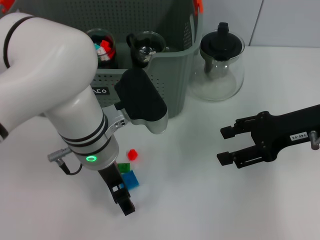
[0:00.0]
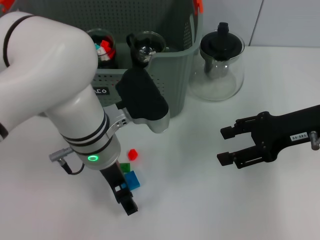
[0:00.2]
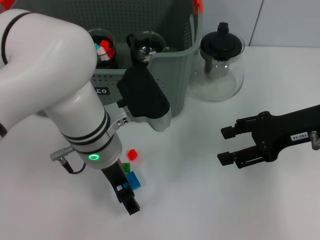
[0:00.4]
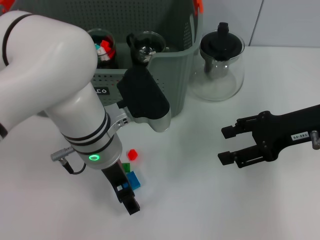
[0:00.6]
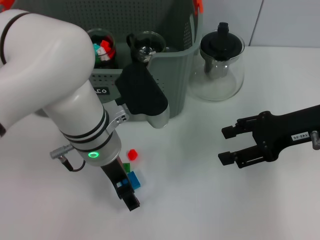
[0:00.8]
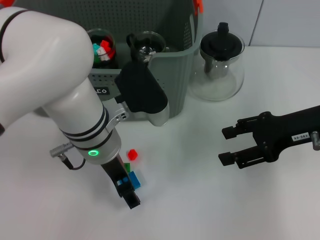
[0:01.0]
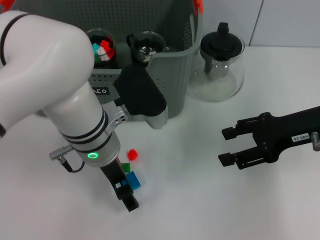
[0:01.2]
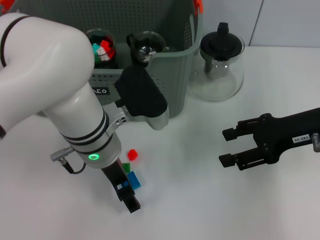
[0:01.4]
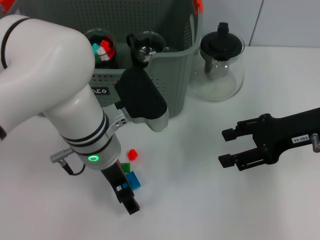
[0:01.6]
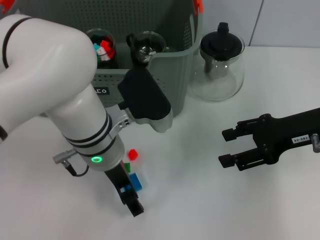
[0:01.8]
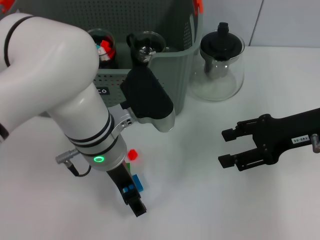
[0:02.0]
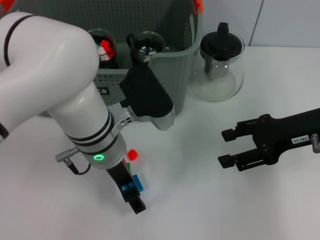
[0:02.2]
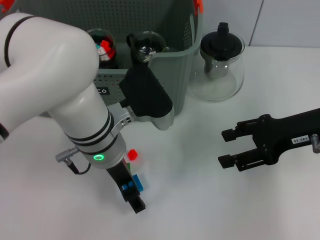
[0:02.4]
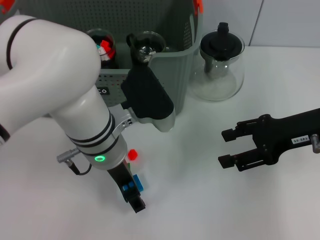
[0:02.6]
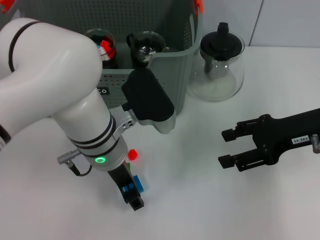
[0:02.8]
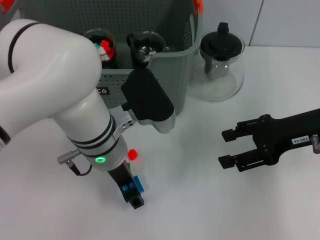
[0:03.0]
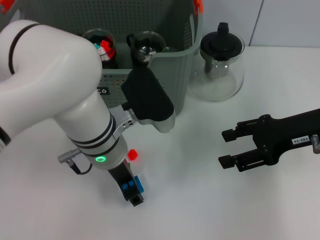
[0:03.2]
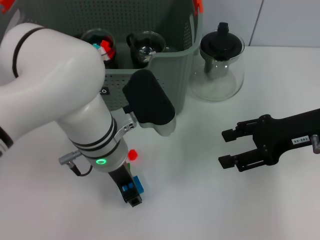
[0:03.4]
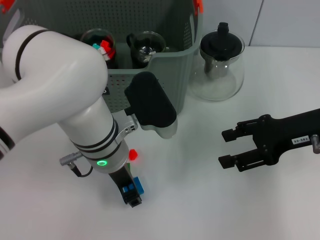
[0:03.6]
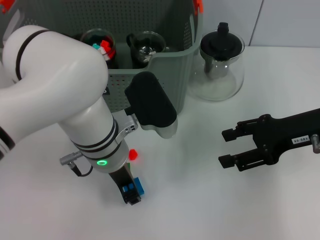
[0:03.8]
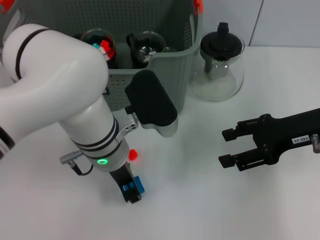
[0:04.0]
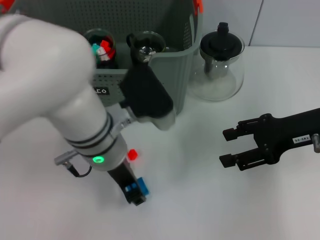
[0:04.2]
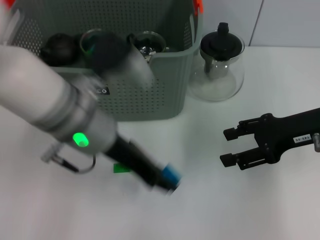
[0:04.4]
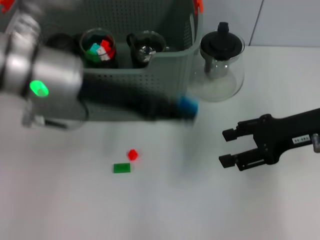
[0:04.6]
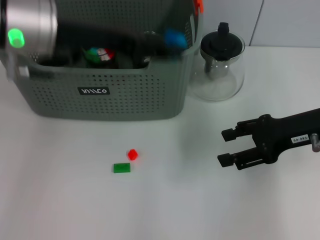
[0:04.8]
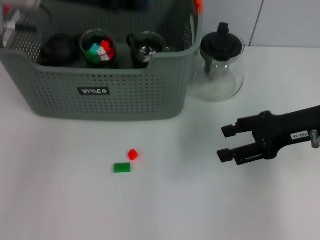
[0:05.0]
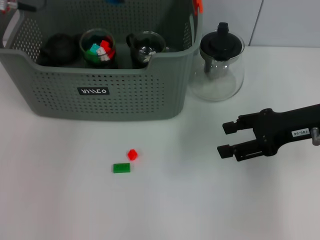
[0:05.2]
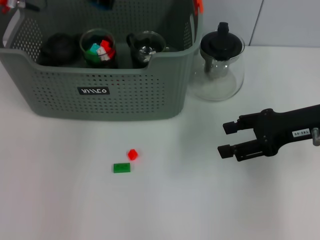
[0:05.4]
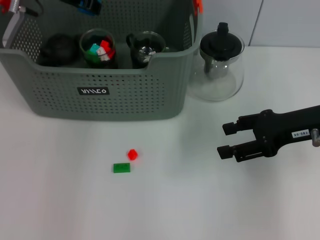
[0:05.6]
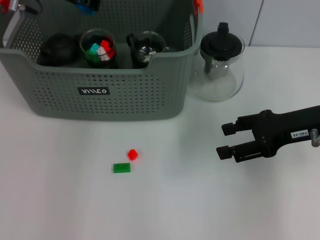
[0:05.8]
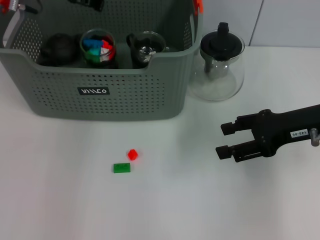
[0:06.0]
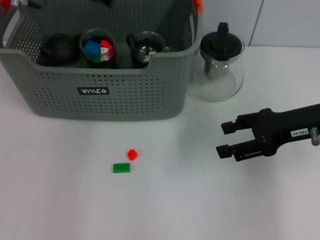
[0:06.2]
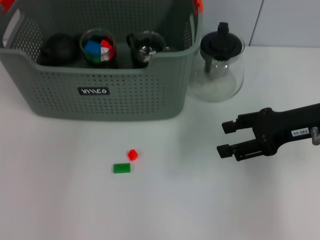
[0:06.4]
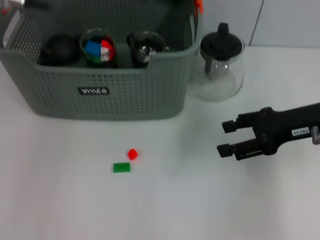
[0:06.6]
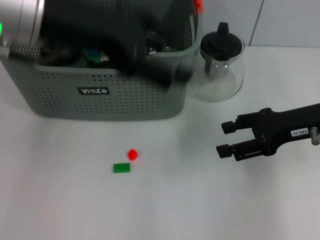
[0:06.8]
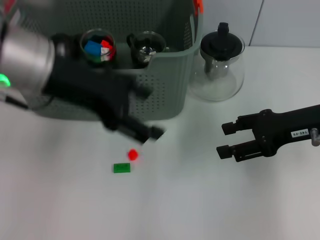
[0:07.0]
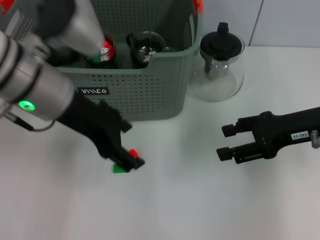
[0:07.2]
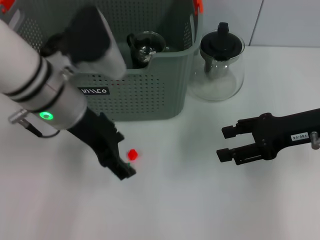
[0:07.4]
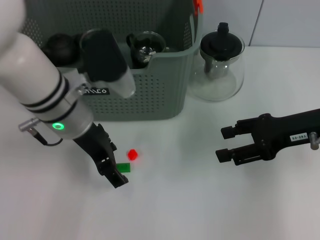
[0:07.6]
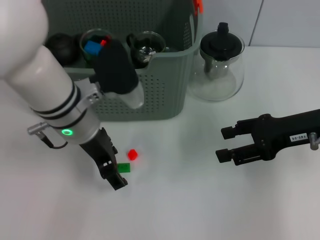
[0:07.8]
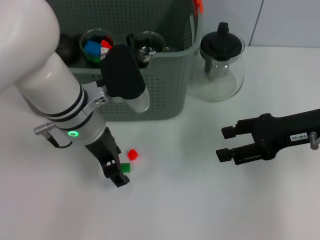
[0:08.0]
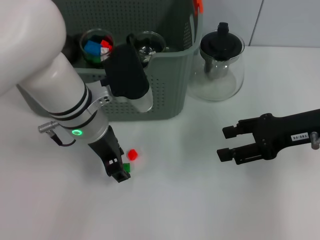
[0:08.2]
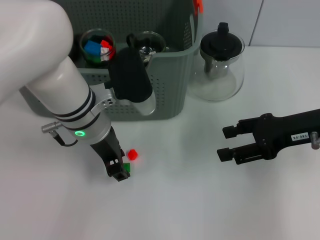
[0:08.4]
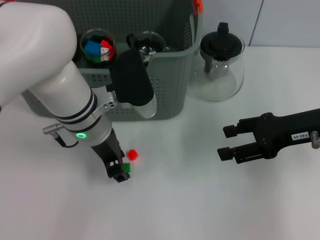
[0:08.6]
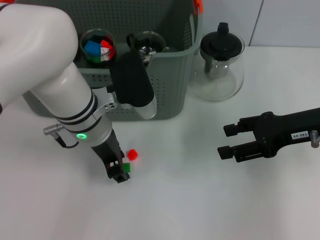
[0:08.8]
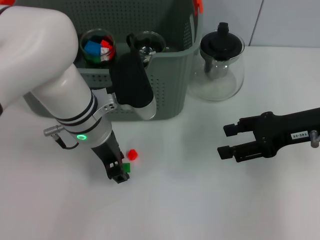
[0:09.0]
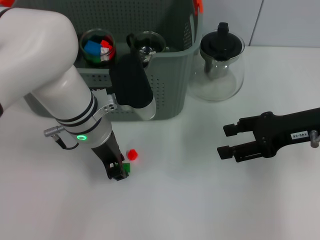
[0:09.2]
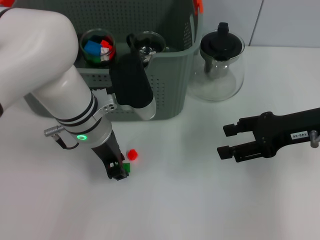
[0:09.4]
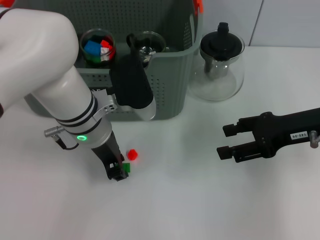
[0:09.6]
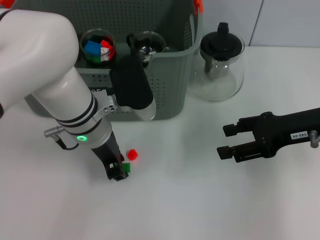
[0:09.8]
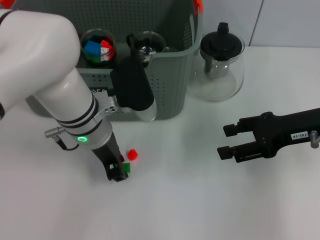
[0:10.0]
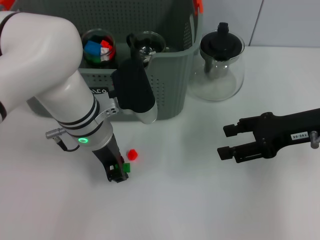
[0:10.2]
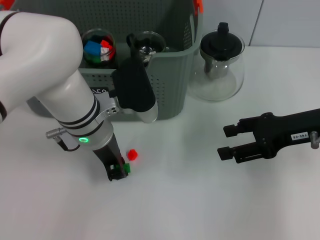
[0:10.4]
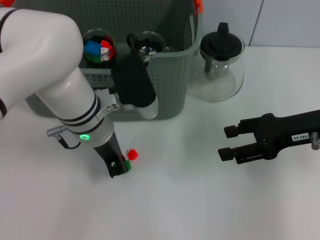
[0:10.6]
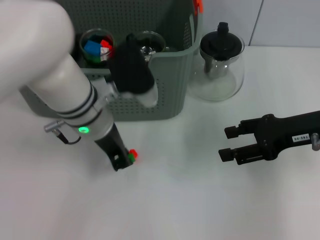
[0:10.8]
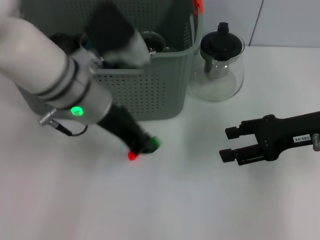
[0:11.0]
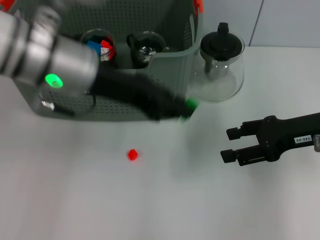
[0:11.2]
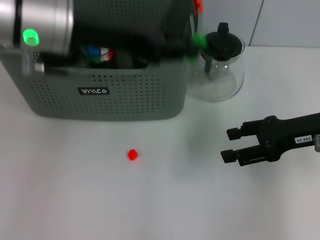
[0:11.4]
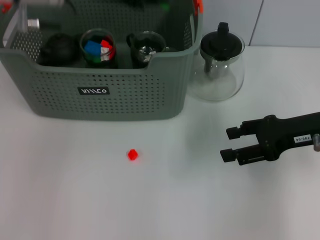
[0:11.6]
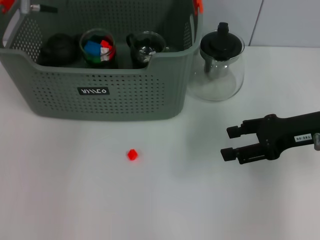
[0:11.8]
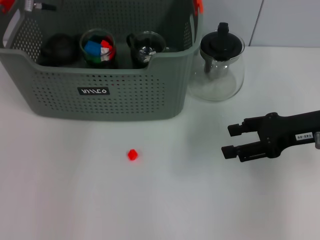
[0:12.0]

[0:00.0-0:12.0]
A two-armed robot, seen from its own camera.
Task of the whole recording: pick up the teacup on the table and place it into the storage bin, pick up the block on the table and place it into the storage bin.
Step, 0:00.0 to 0:04.0: Grasp the dark blue block with left gripper.
Step, 0:04.2 to 0:06.4: Place the dark blue block in the storage box with left gripper.
Step, 0:06.6 to 0:10.6: Grasp the green block with left gripper.
0:00.0 to 0:03.0: Both grippers stay about where they are.
0:03.0 to 0:04.4: The left gripper moves upward, roughly 5 cm.
0:04.4 to 0:06.0: The left gripper travels forward, to the left and upward by about 20 cm.
0:06.0 to 0:07.6: The left gripper heads backward, downward and to the right, covering roughly 15 cm, and opens.
0:07.6 to 0:09.0: The left gripper closes up.
0:09.0 to 0:10.4: Neither gripper changes place.
0:10.4 to 0:12.0: The left gripper goes about 20 cm upward, forward and to the left.

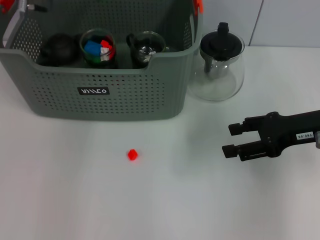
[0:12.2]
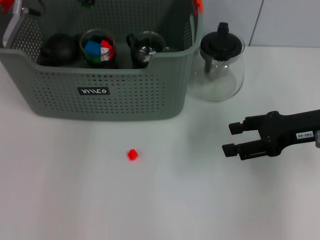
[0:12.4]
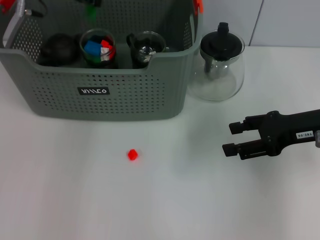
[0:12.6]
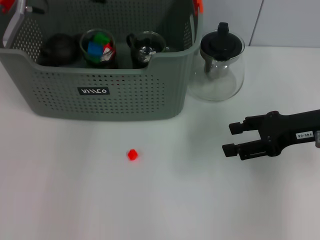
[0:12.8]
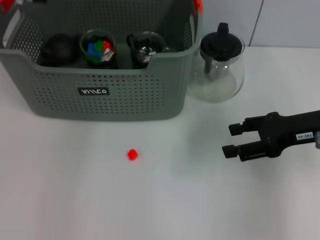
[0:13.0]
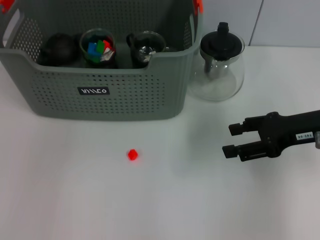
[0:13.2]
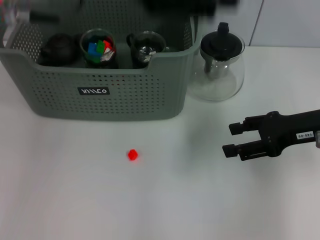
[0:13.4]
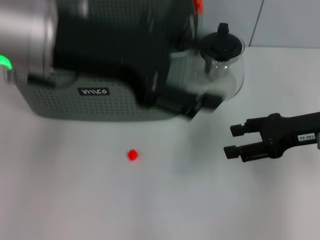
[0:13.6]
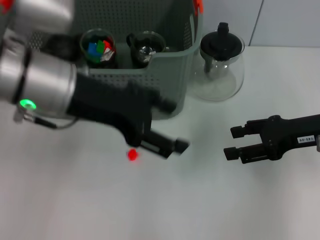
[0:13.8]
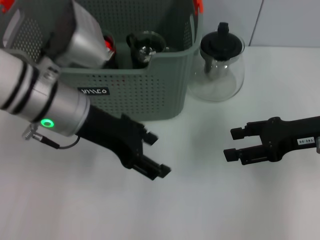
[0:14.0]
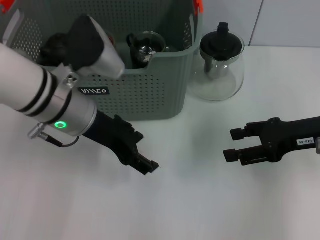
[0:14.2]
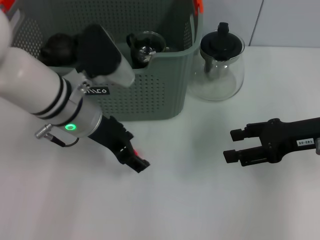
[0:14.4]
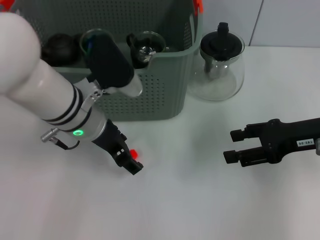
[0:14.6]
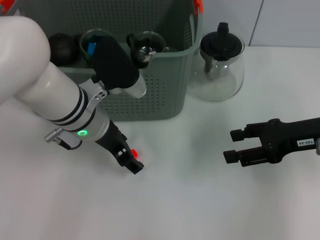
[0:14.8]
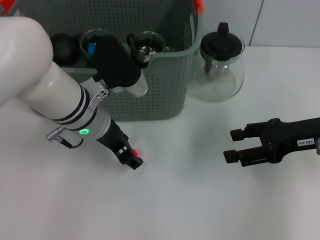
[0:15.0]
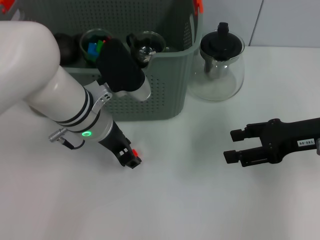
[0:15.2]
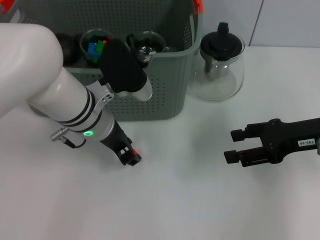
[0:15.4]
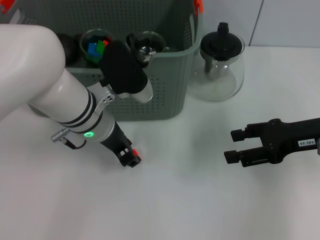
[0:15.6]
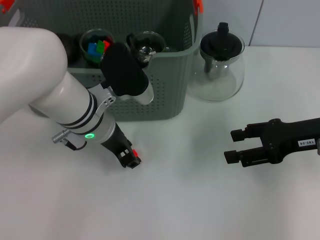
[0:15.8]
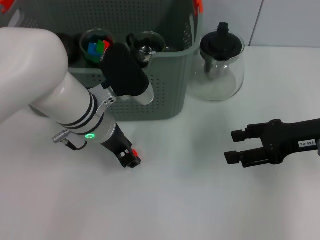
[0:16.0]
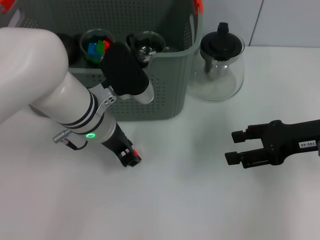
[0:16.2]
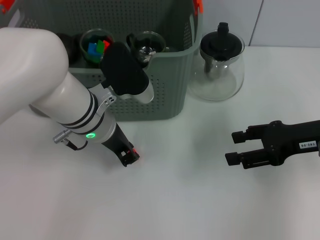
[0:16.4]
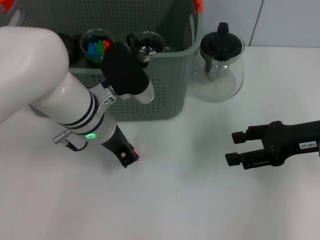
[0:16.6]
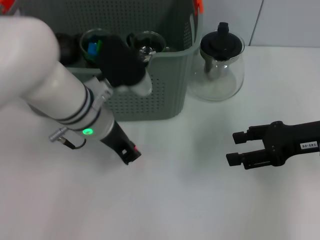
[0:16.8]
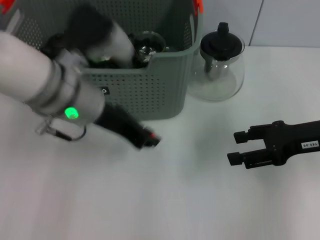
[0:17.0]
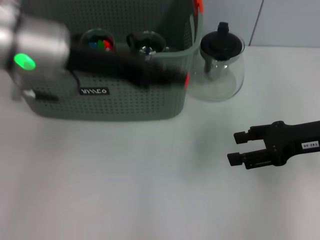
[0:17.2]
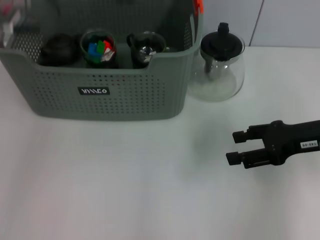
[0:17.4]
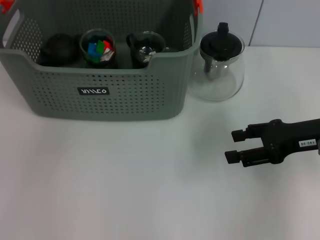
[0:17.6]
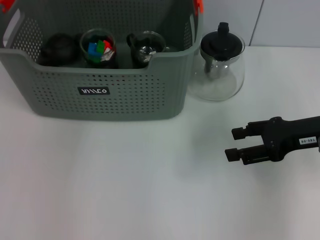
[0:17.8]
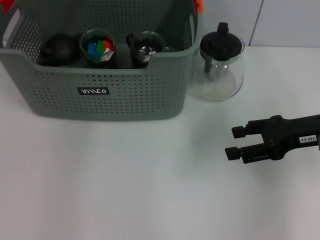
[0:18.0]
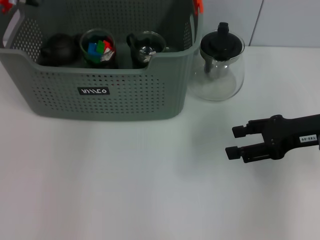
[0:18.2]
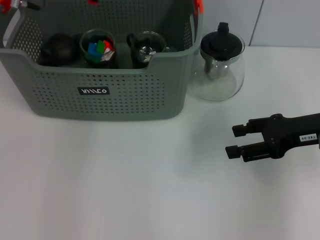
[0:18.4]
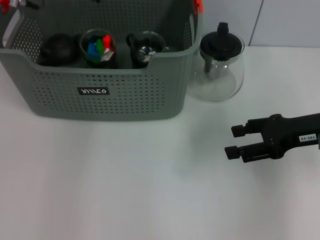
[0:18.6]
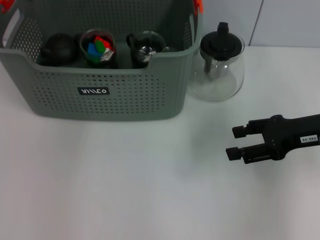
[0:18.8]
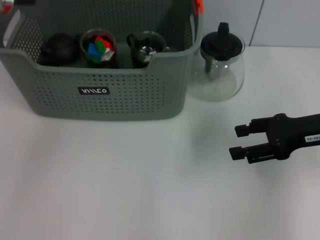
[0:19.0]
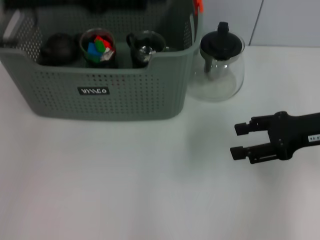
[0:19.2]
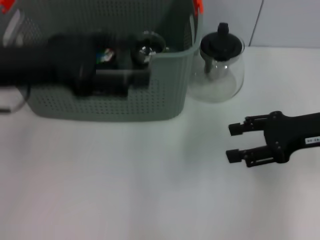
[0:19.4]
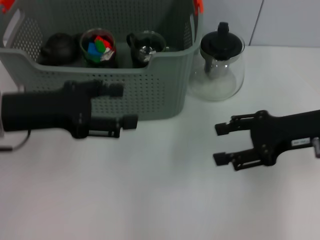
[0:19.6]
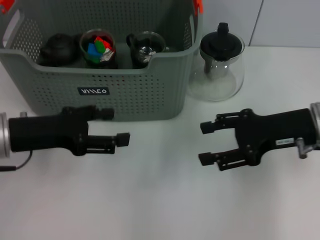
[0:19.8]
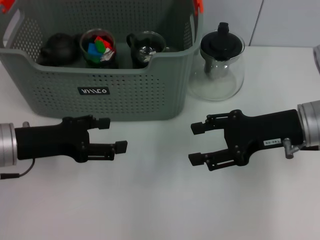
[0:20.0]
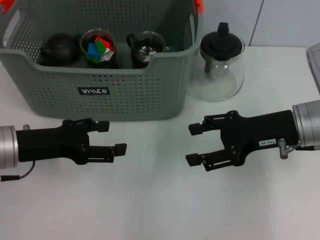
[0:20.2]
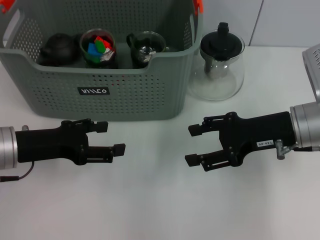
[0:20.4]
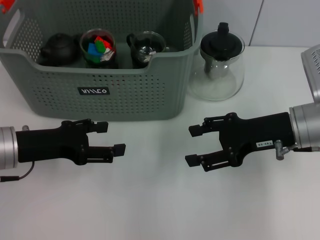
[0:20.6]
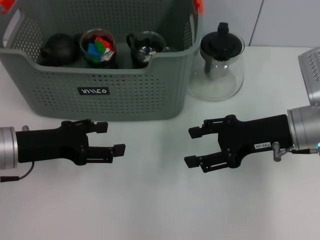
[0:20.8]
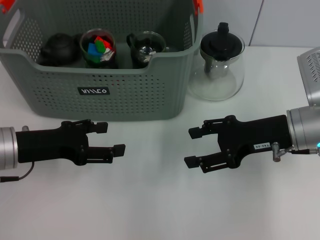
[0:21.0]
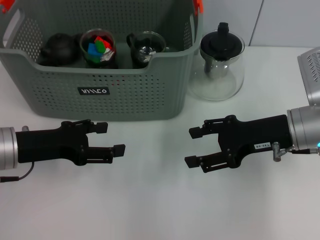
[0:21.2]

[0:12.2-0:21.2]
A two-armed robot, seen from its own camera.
Task of the whole recording: pick up the teacup on the table and place it into the storage bin, pick up the block on the table and place it into the storage bin.
Step, 0:13.4 to 0:16.4: Grasp the orange block with left gripper.
Step, 0:16.6 to 0:18.6: Place the orange block in the storage box with left gripper.
0:12.2 to 0:13.8: The left gripper goes approximately 15 cm backward, and opens up.
0:13.8 to 0:15.2: The left gripper moves downward, roughly 10 cm.
0:15.2 to 0:16.6: The left gripper closes up.
0:16.6 to 0:18.2: The left gripper shifts approximately 20 cm upward, forward and to the left.
0:18.2 to 0:19.8: The left gripper moves backward and downward, roughly 20 cm, and opens.
0:19.8 to 0:21.2: The grippers move only a little.
